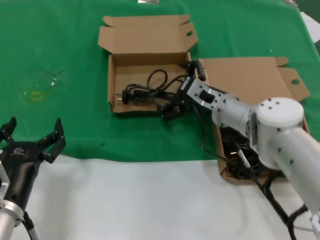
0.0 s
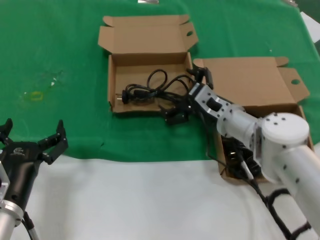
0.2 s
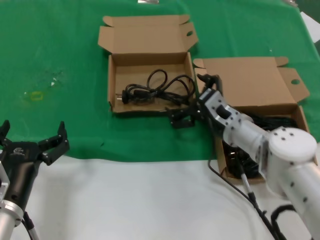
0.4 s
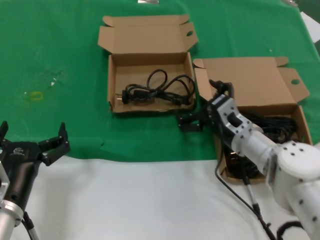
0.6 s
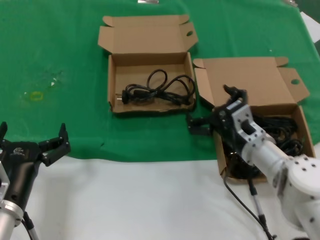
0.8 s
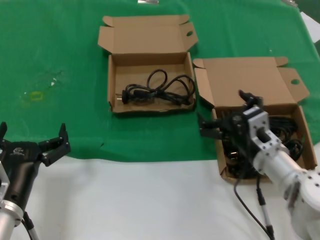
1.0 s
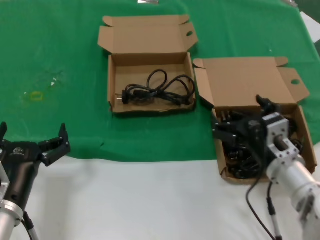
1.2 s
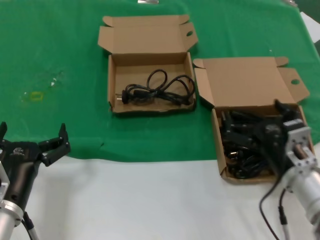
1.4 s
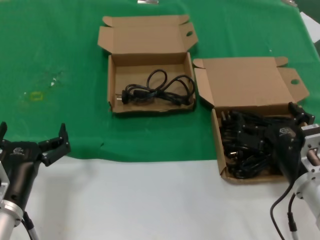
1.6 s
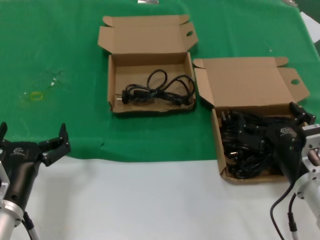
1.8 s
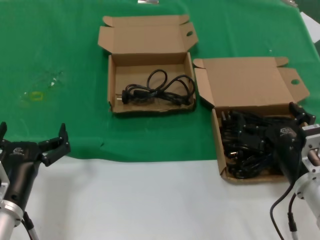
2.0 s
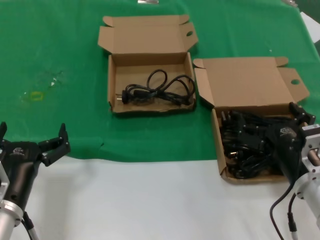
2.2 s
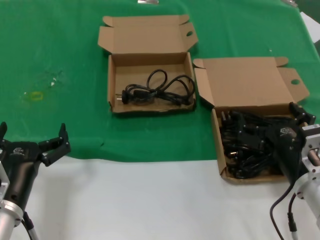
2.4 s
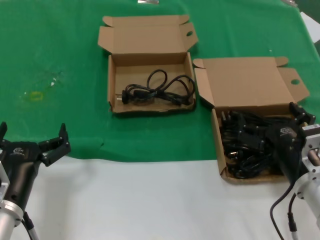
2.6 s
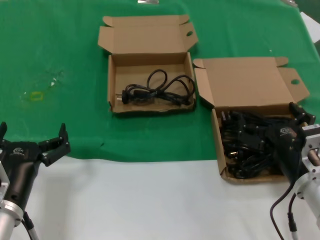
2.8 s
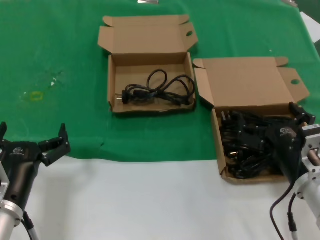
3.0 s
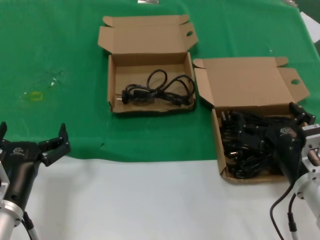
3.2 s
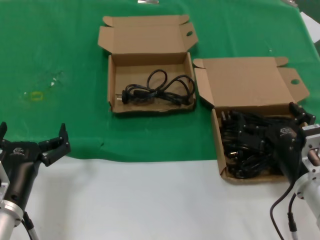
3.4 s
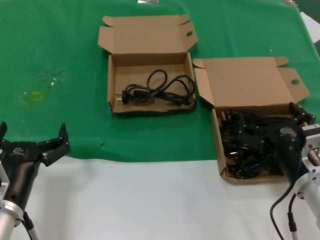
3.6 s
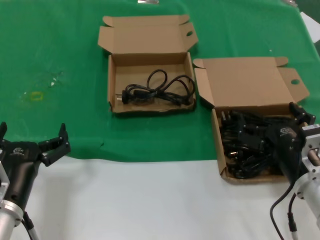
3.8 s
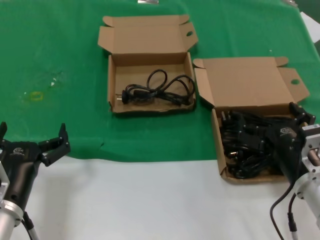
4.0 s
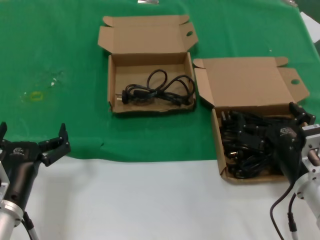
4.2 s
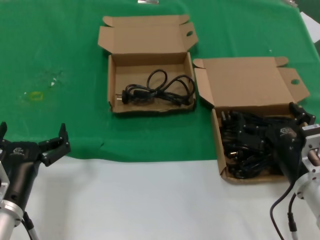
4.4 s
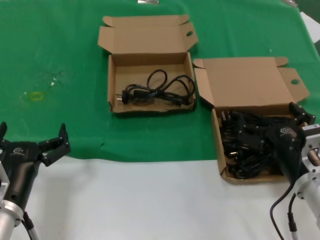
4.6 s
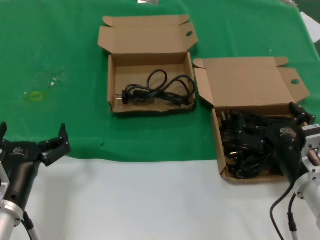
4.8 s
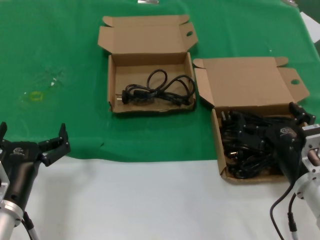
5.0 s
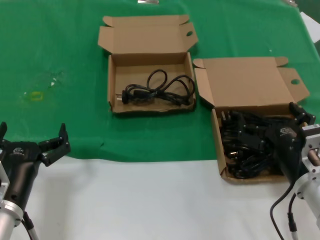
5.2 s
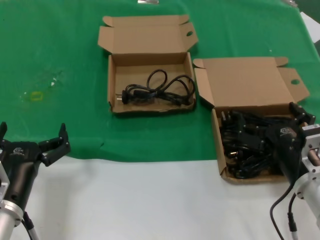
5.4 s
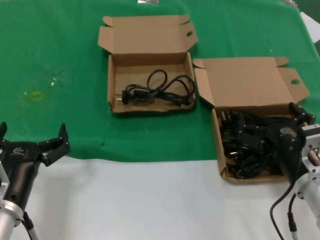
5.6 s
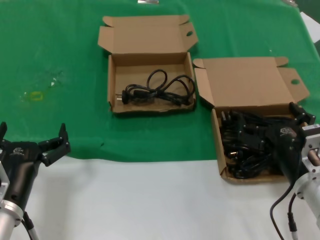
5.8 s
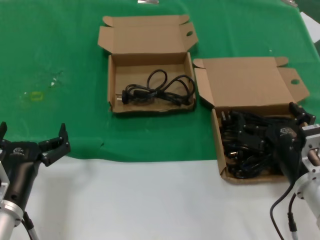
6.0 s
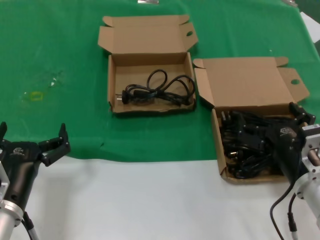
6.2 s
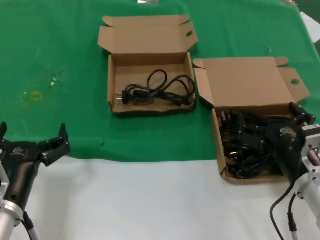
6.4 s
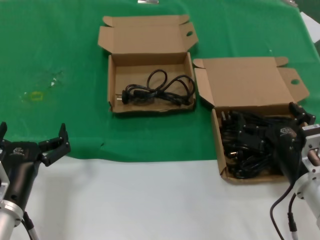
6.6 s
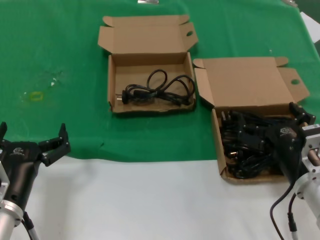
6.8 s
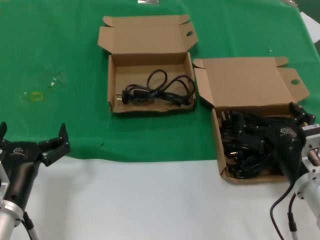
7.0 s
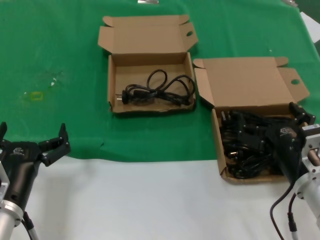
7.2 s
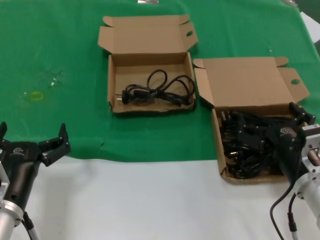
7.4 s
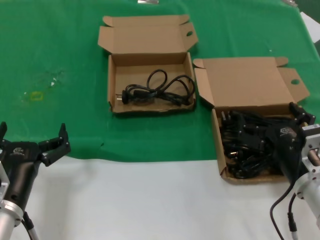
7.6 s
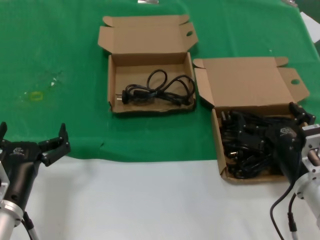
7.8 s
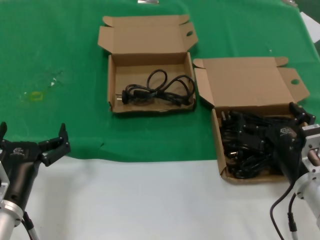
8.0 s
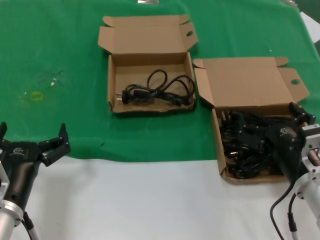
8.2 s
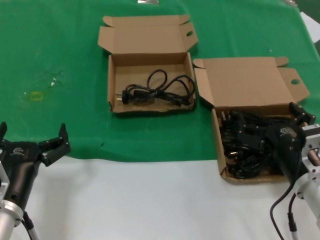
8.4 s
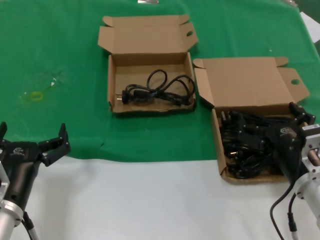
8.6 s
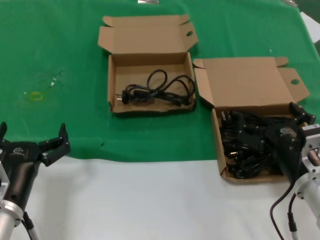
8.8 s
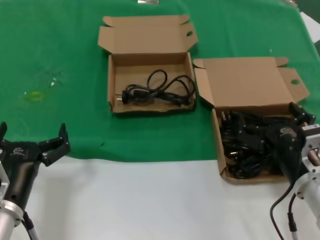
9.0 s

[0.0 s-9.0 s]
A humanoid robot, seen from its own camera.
Task of the whole recording: take the parts from the box containing them and put them into an empty box.
0.0 to 1.6 s: The right hand goes approximately 20 cm backward and to the right.
1.6 to 9.0 s: Neither hand changes place.
